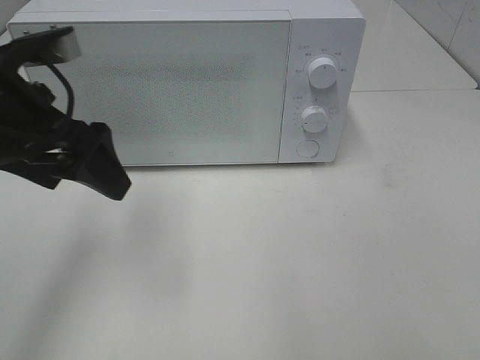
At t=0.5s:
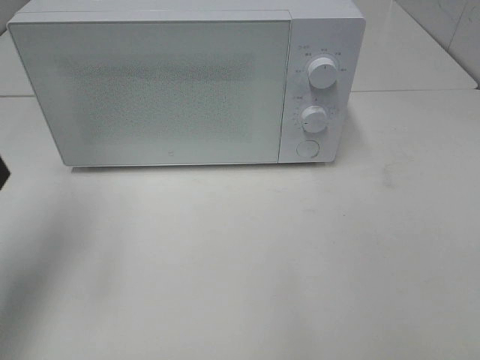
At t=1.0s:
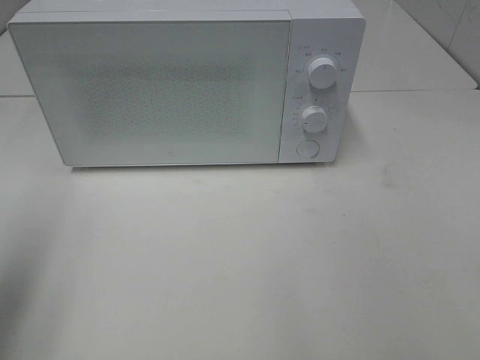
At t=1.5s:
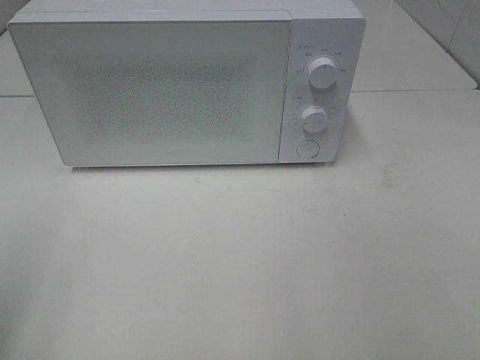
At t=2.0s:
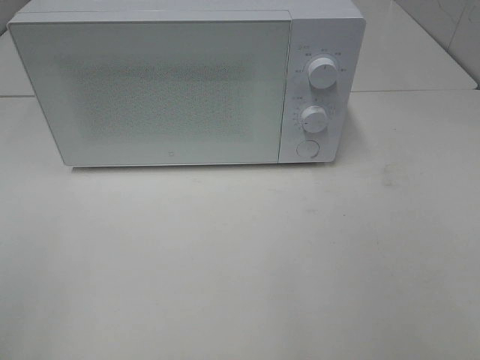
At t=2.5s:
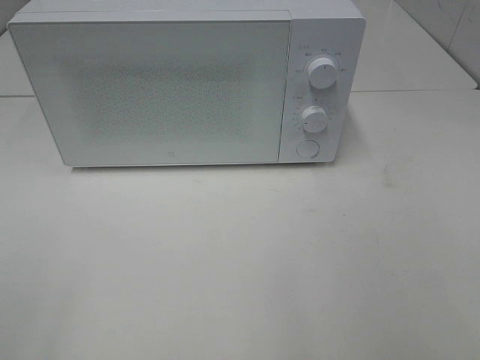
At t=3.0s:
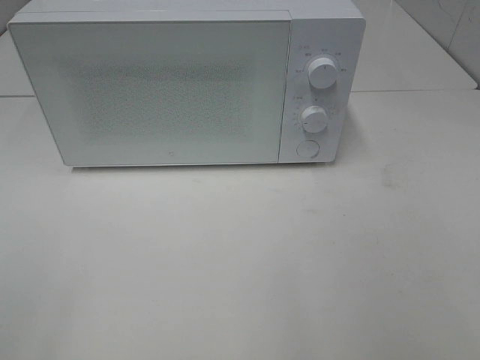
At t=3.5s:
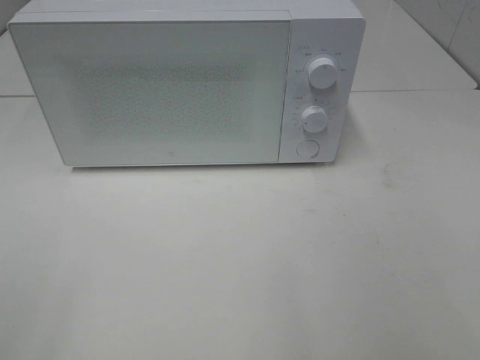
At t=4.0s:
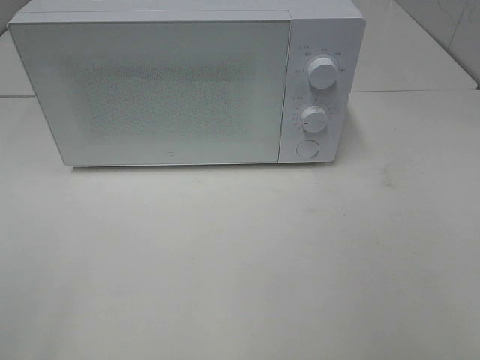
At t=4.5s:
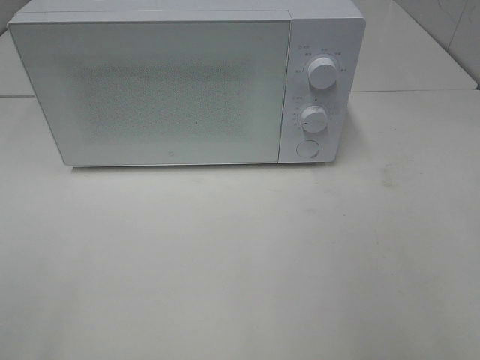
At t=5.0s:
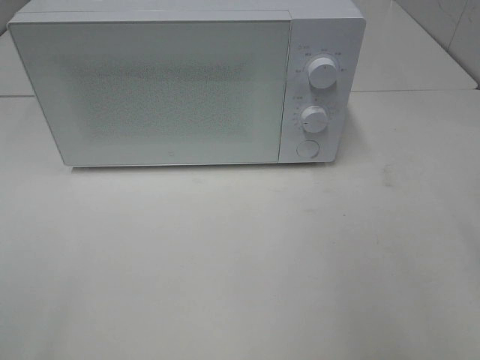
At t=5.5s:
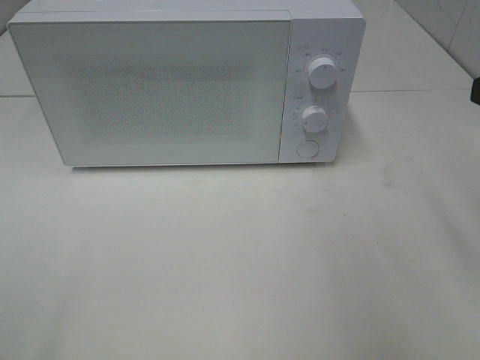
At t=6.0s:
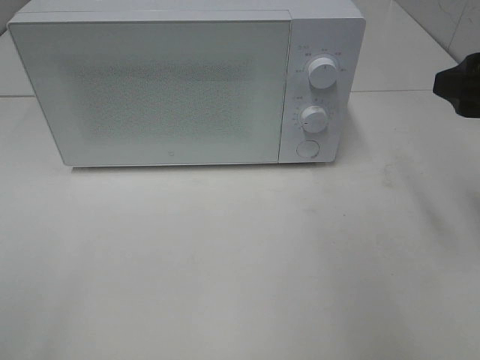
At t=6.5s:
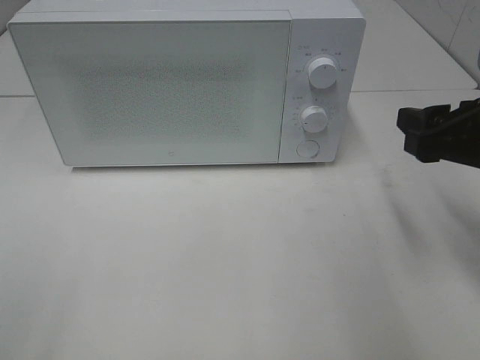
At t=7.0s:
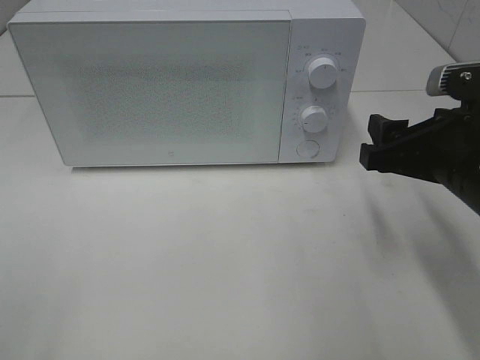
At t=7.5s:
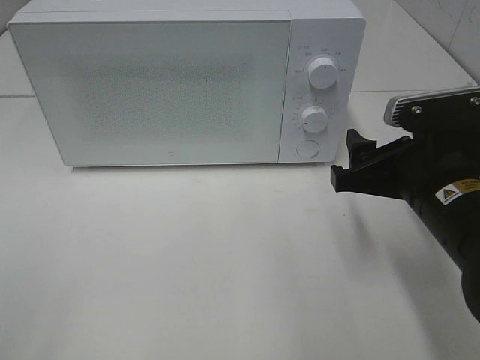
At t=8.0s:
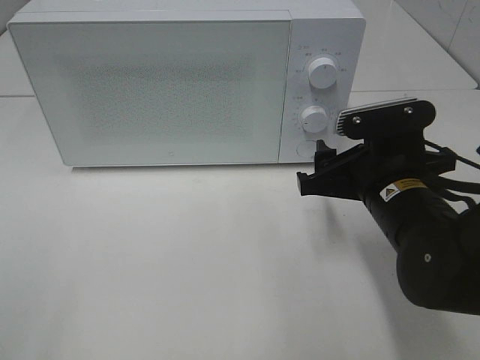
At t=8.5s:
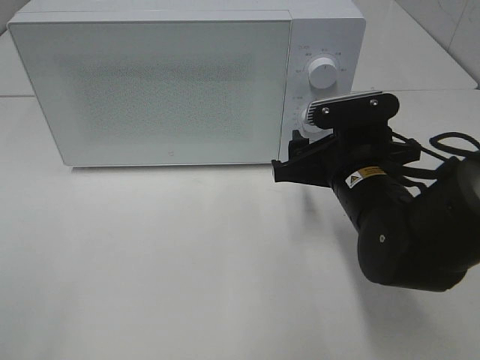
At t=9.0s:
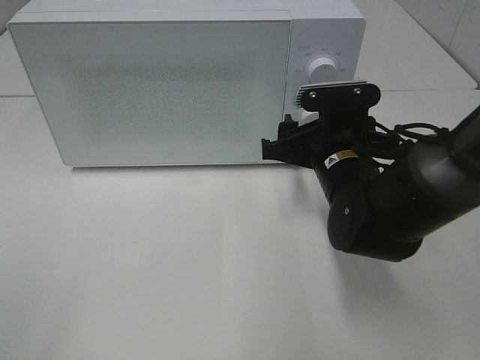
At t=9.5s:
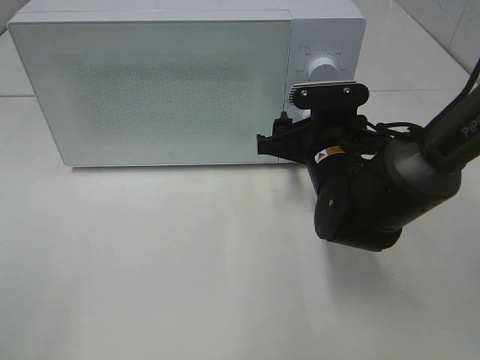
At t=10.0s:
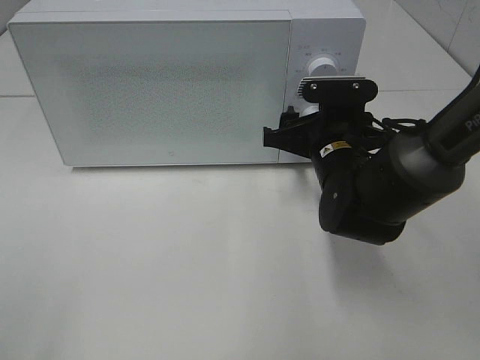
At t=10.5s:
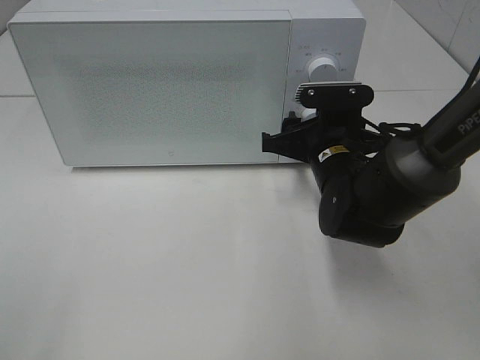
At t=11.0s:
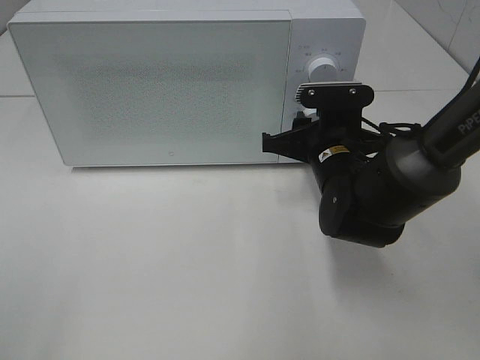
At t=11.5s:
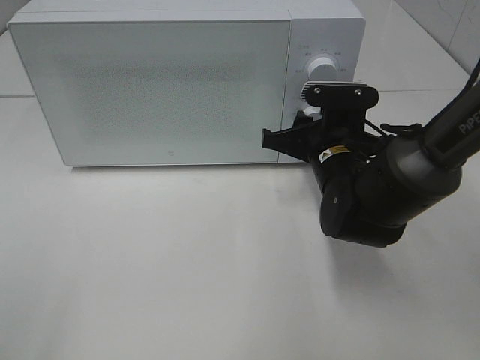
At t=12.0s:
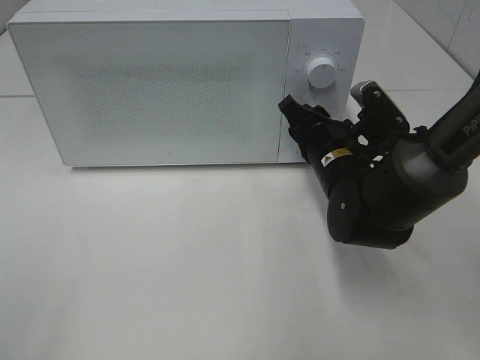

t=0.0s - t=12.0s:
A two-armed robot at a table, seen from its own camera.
Task of the whole recording: Heat the burger.
t=0.0s - t=2.0s: The left gripper shifts roughly 25 cm backward and to the left.
t=4.0s - t=6.0s: The right gripper moves forward, approximately 20 cm.
t=6.0s - t=8.0s: The right gripper heads downward and to the left, covering about 15 cm.
t=8.0s - t=10.0s: The right gripper shifts approximately 10 cm forward.

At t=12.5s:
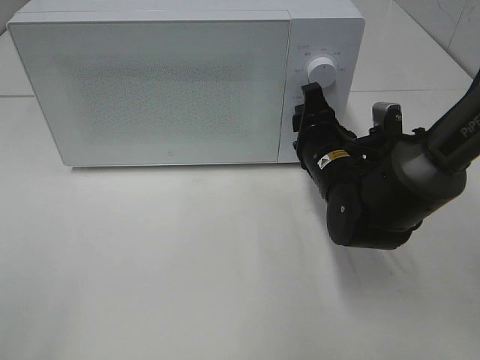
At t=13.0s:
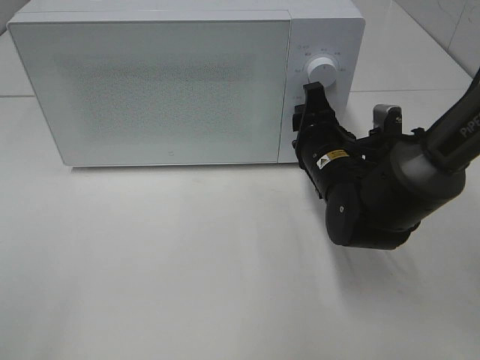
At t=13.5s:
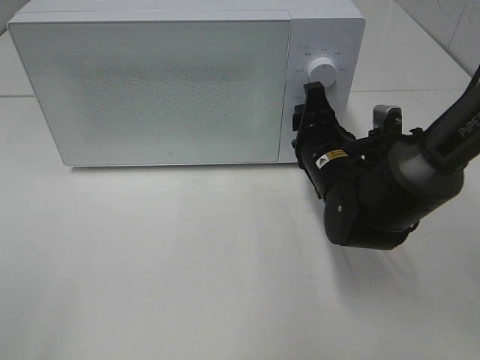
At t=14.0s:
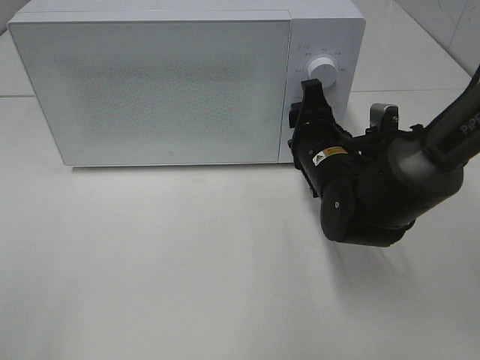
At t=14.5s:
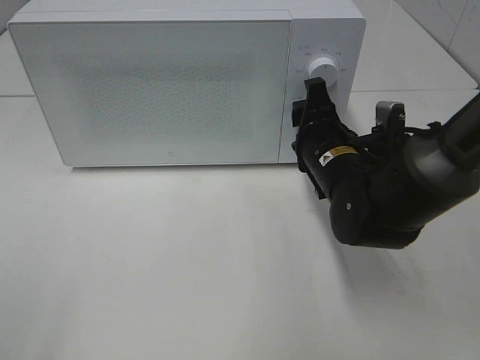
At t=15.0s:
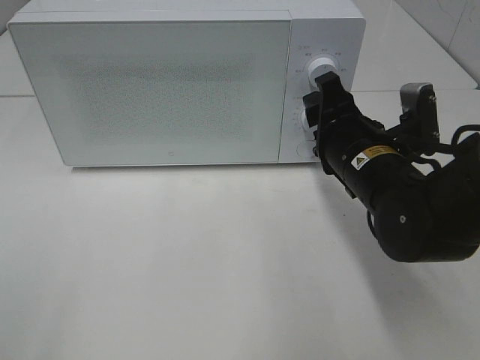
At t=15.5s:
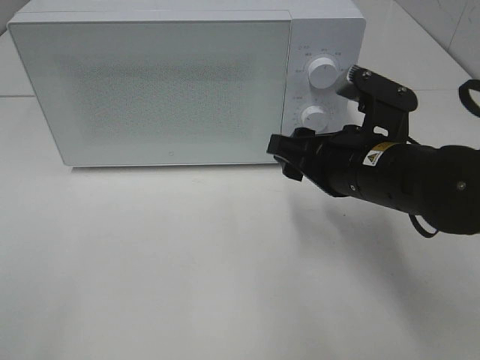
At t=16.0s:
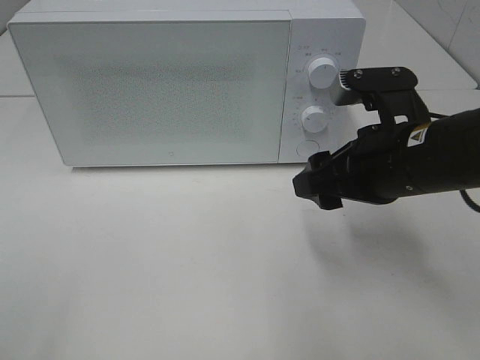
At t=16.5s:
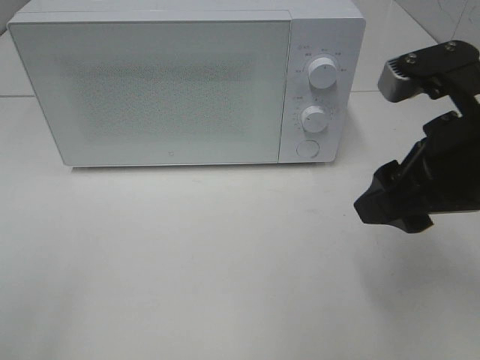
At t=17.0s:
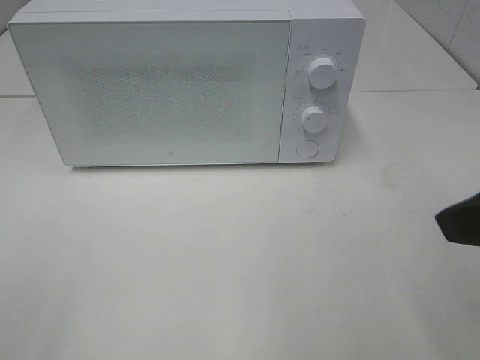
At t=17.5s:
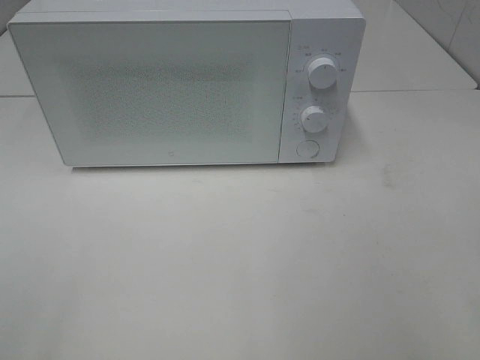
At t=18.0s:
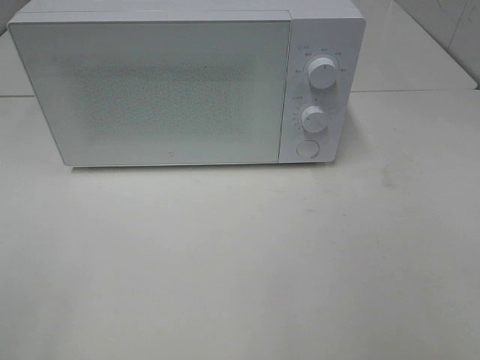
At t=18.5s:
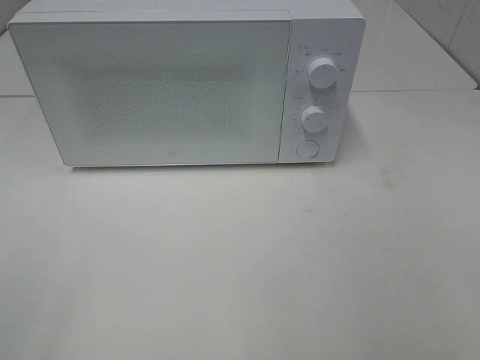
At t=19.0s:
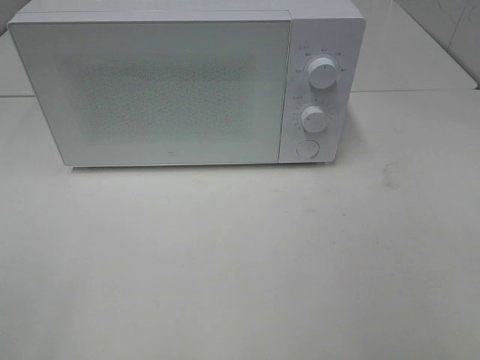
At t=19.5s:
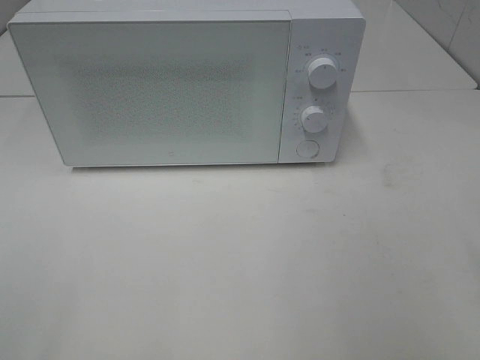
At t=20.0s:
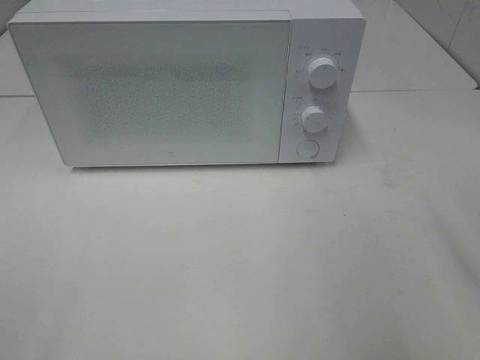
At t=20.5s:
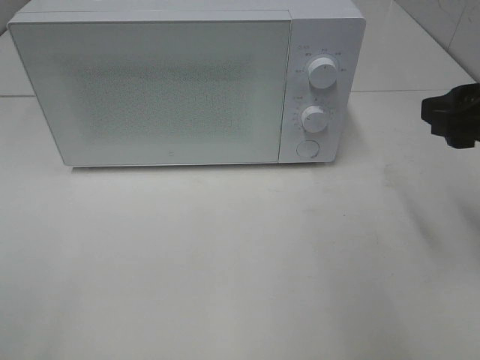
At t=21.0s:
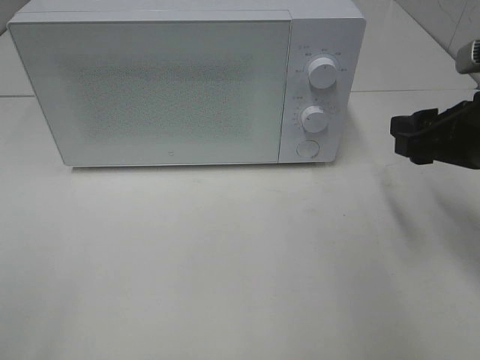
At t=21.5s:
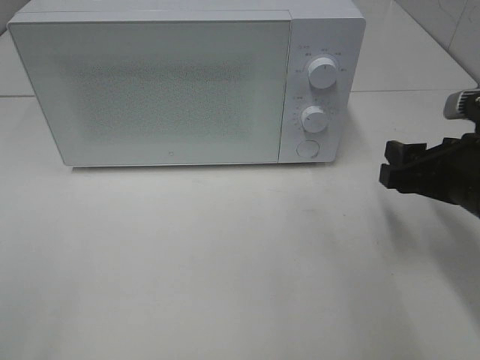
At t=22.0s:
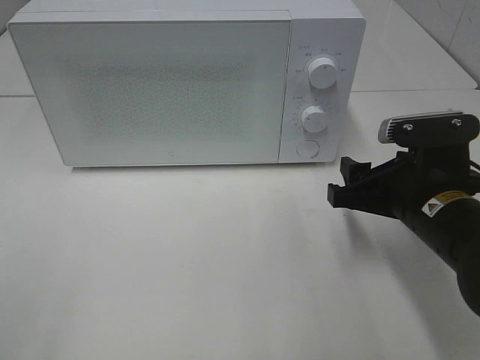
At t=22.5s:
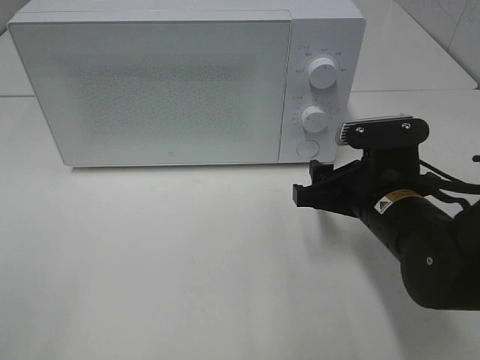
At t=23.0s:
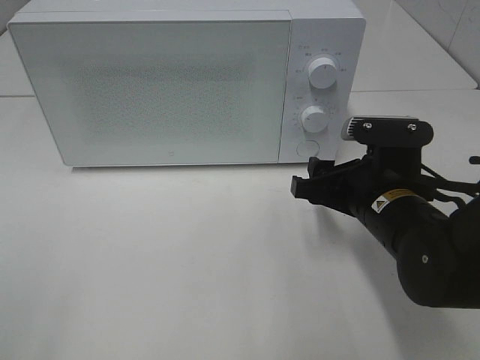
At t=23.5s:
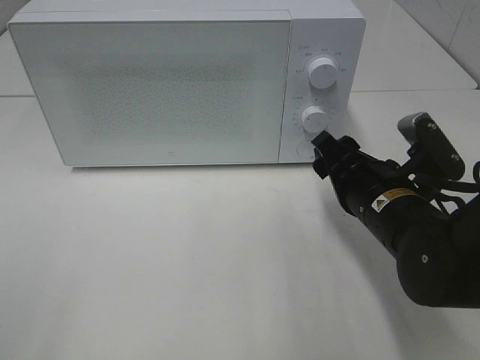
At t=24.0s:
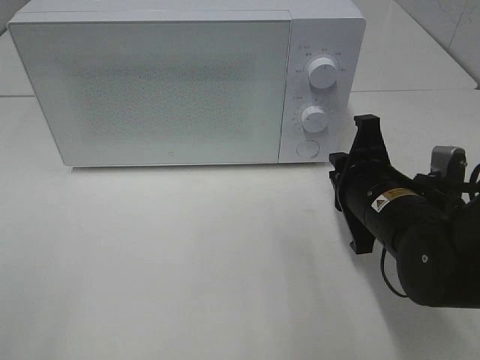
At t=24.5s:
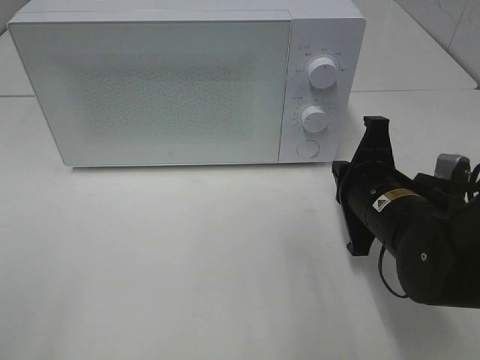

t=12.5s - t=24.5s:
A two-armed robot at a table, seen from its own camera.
Task of the whole recording: Heat the burger.
Step, t=12.5s - t=14.5s: Right hand: twist timer button.
t=12.5s - t=14.5s: There are only small adjustments of the grippers.
t=14.5s - t=16.5s: The right gripper shifts roughly 20 cm upward, backward and to the right.
t=16.5s - t=18.5s: The right gripper shifts roughly 20 cm backward and to the right.
t=18.5s - t=20.5s: The right gripper goes about 20 cm forward.
t=20.5s - t=22.5s: The right gripper goes roughly 15 cm downward and to the left.
t=22.5s - t=24.5s: The right gripper closes.

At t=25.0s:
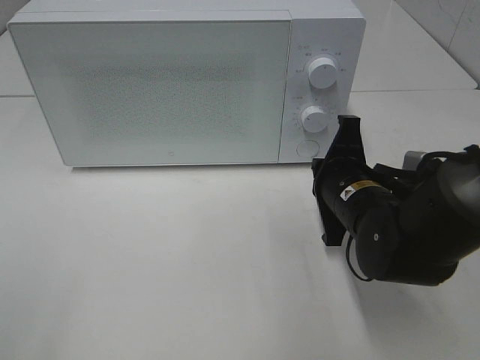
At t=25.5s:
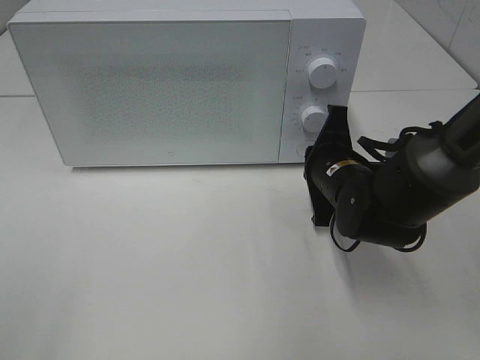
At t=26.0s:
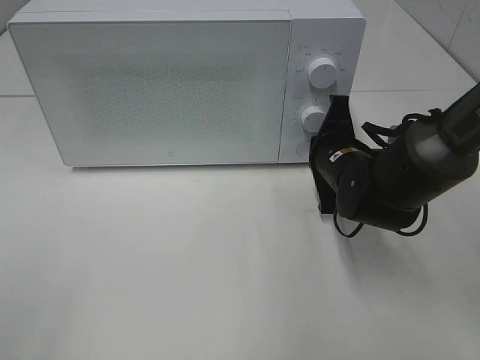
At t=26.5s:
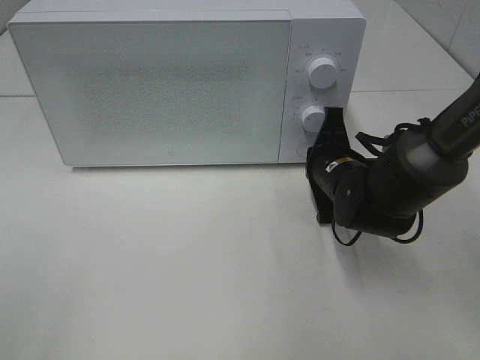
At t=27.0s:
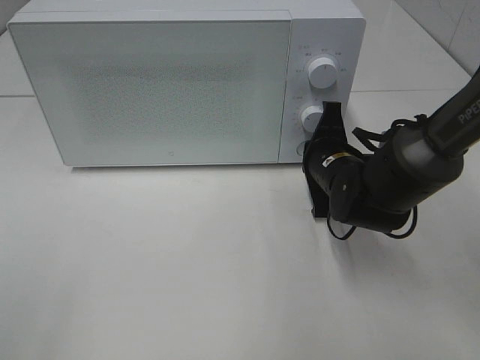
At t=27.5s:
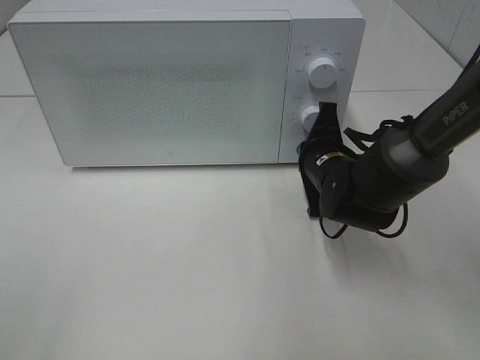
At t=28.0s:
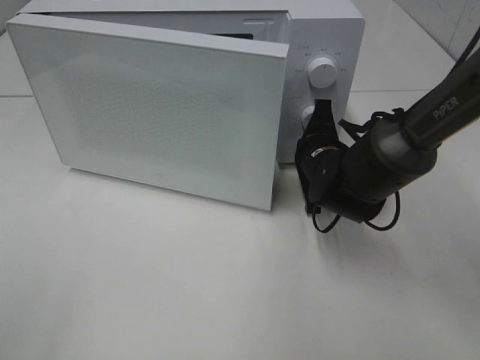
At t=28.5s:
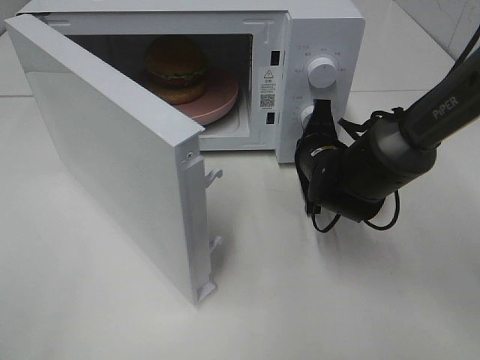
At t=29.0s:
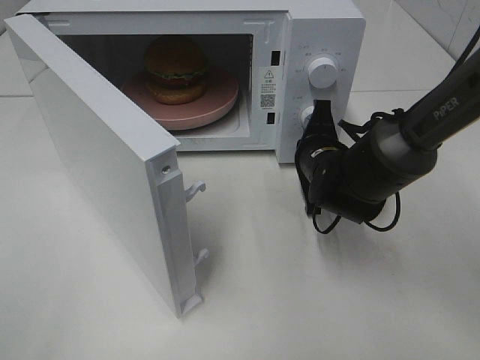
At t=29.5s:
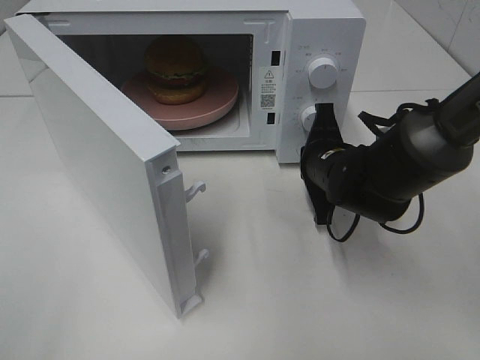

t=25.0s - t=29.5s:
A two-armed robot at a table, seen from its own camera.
Task of the whole recording: Heat the burger.
Step, t=25.0s - t=29.0s: Right hand: press the switch.
t=25.0s - t=27.0s: The right gripper goes roughly 5 cm forward.
